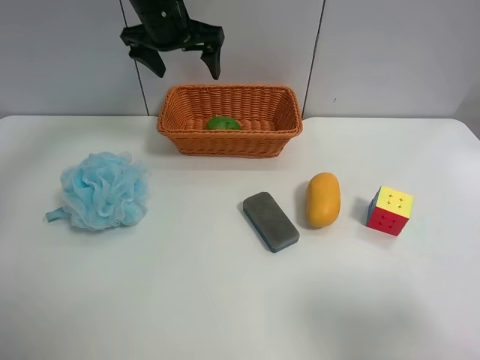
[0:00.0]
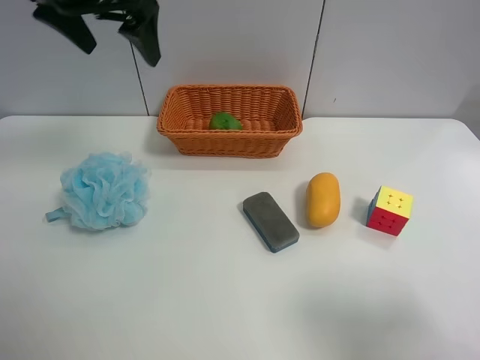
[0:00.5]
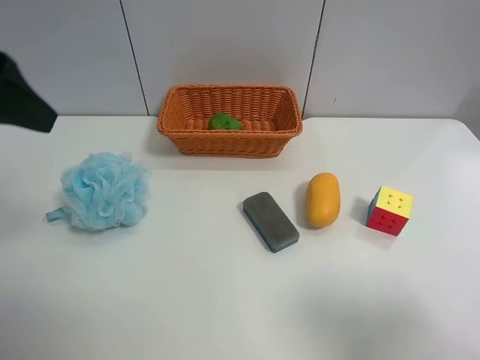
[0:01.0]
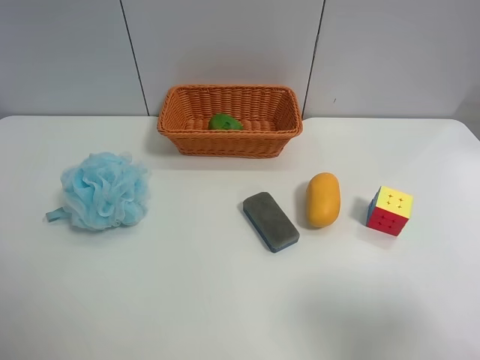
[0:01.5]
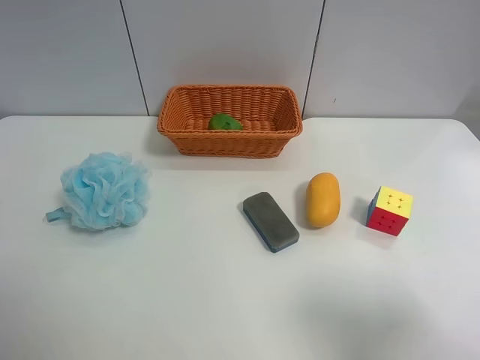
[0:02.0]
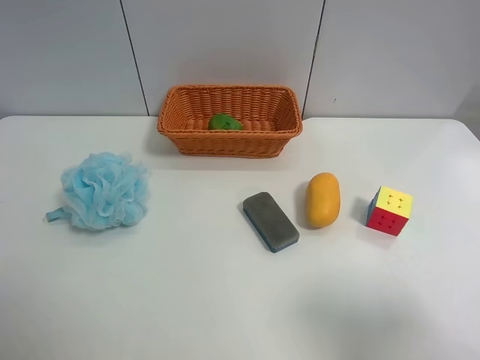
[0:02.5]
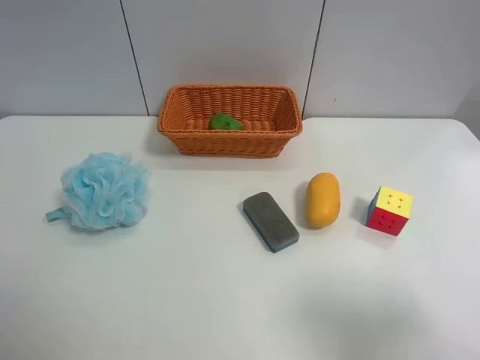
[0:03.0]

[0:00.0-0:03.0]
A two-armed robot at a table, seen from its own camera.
Task of the whole recording: use the left gripper to grab items from the table and place them in the basket.
0:00.0 to 0:01.5: The left gripper moves backward and to the left, approximately 40 cm.
